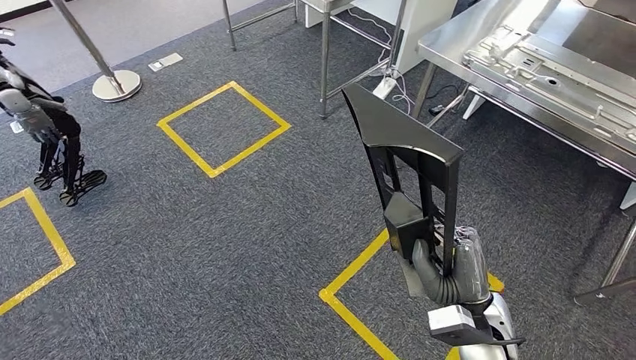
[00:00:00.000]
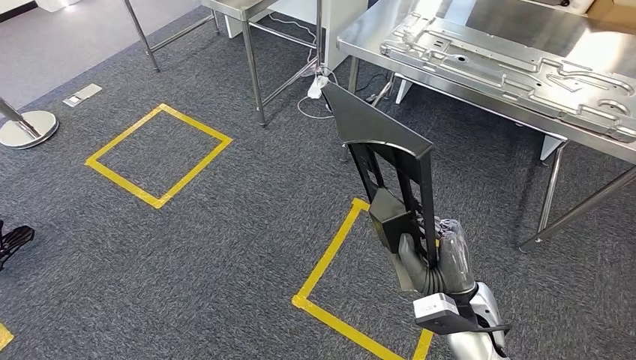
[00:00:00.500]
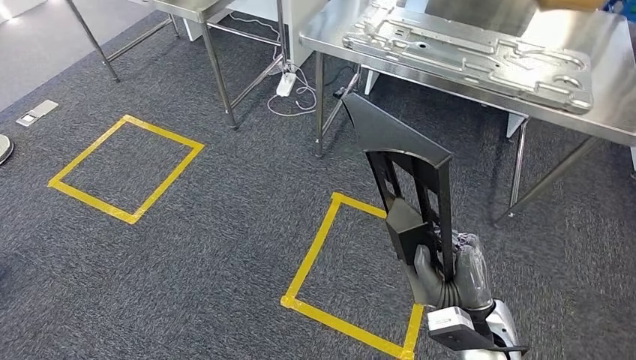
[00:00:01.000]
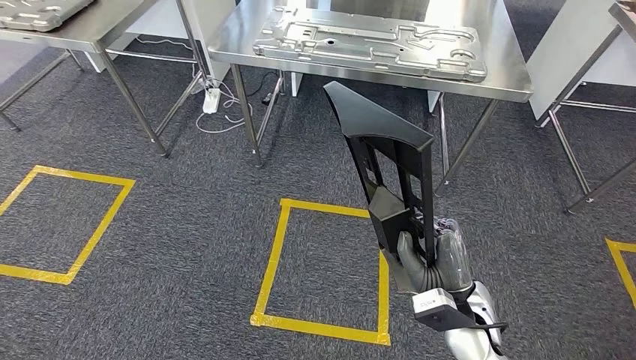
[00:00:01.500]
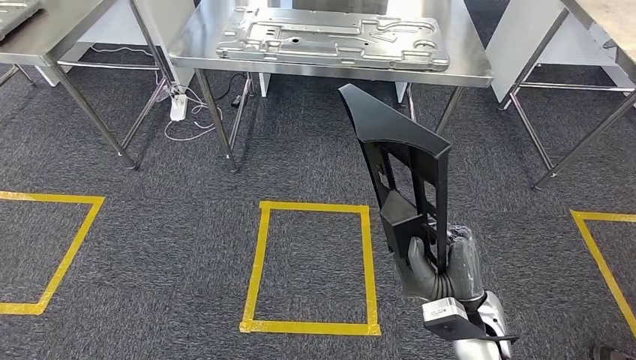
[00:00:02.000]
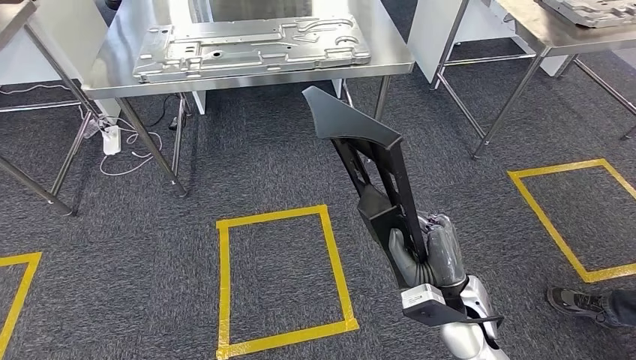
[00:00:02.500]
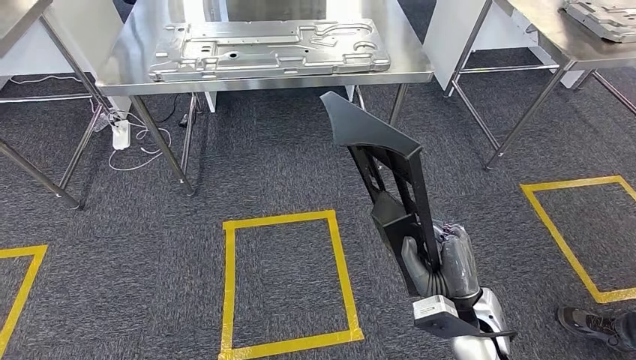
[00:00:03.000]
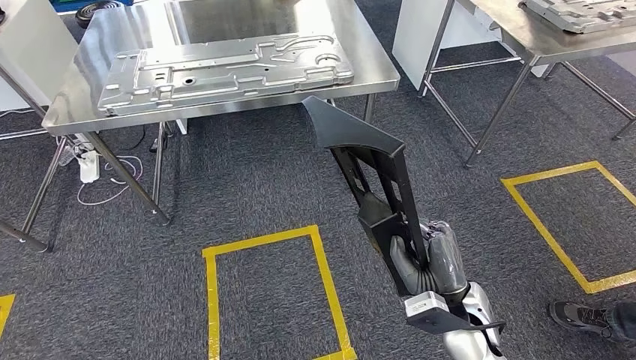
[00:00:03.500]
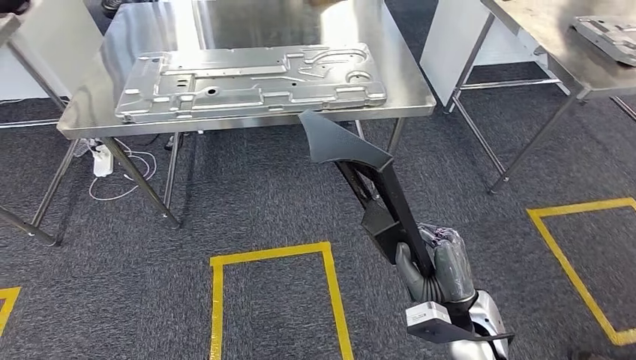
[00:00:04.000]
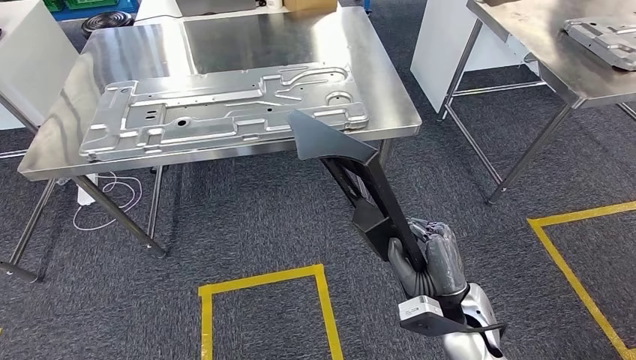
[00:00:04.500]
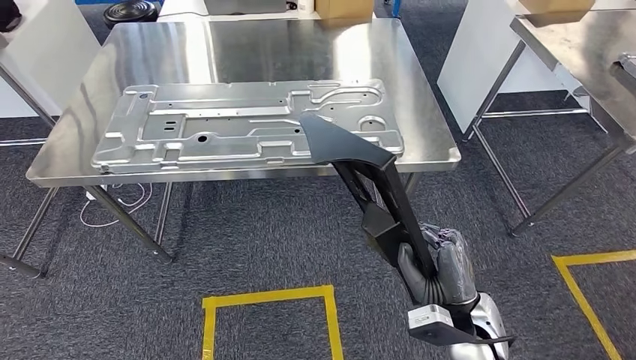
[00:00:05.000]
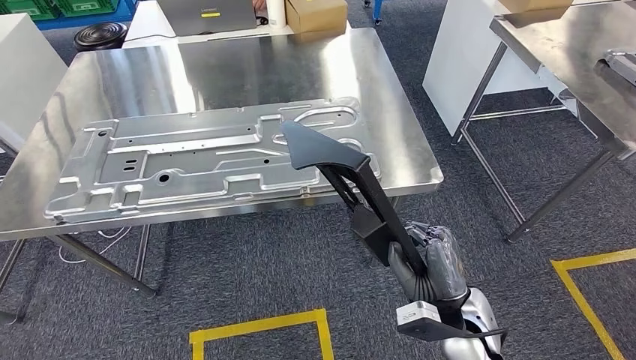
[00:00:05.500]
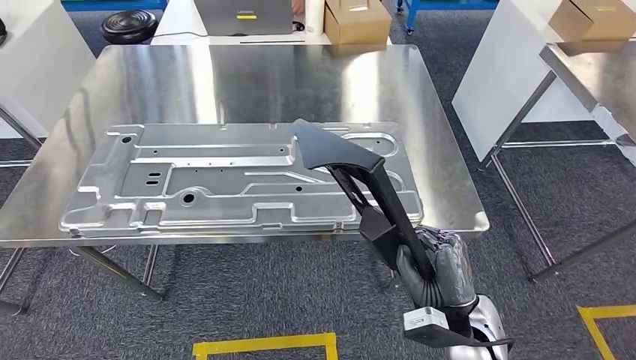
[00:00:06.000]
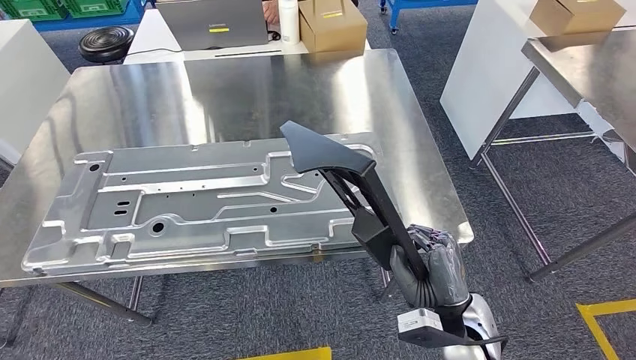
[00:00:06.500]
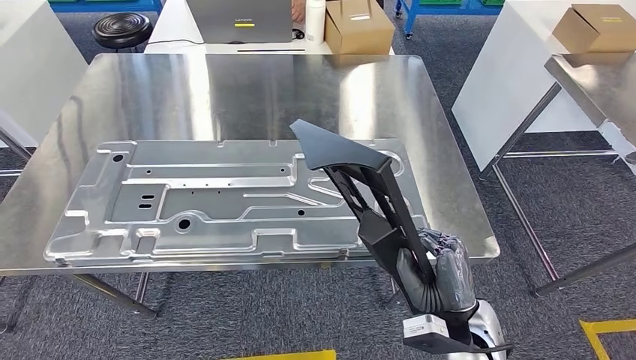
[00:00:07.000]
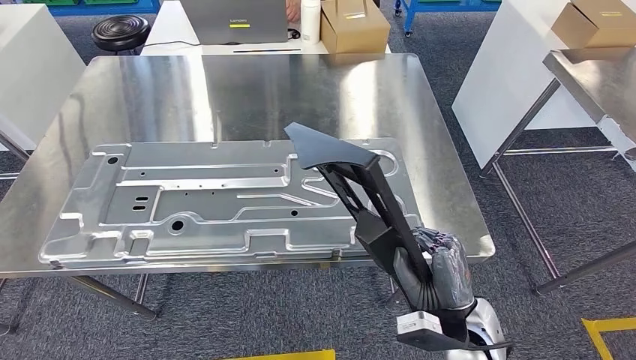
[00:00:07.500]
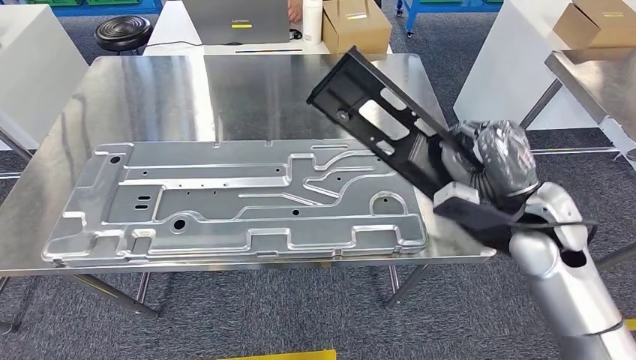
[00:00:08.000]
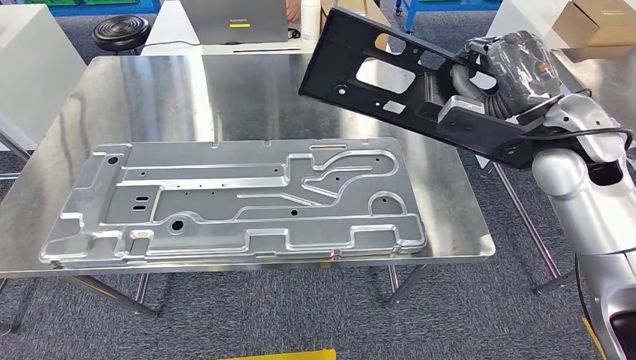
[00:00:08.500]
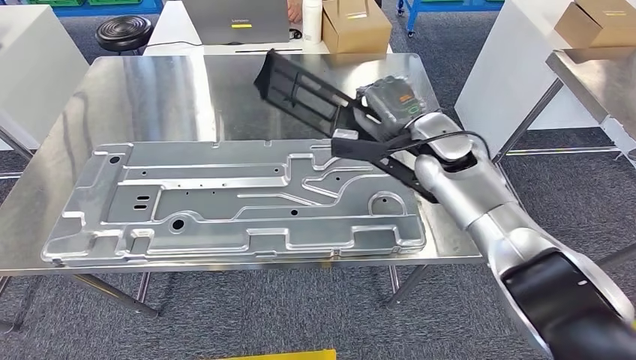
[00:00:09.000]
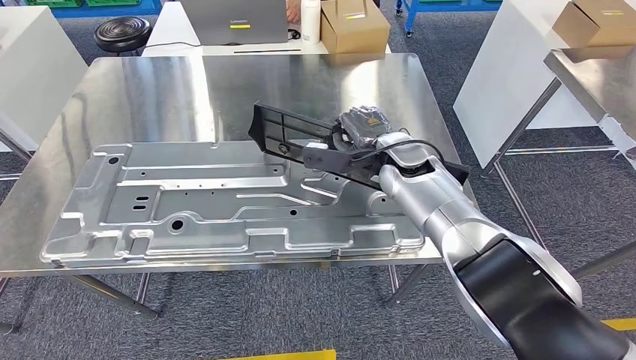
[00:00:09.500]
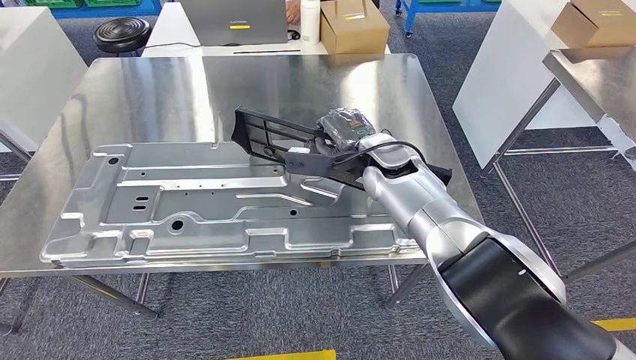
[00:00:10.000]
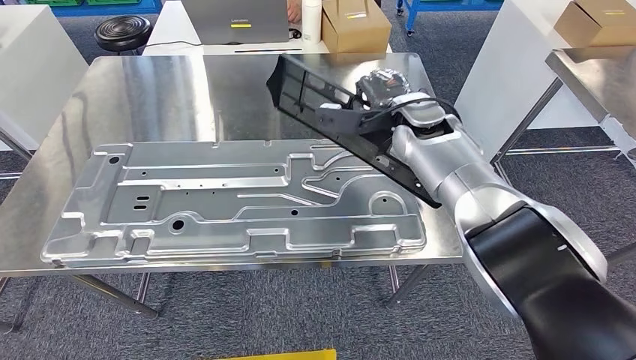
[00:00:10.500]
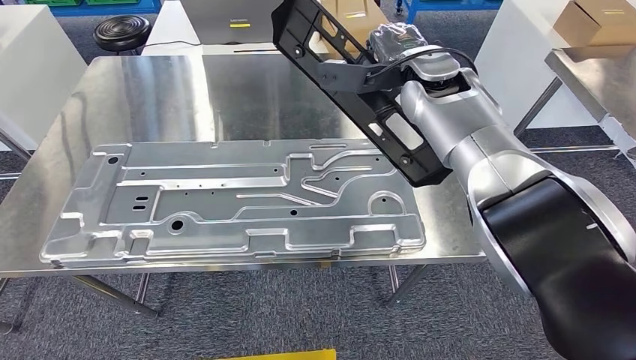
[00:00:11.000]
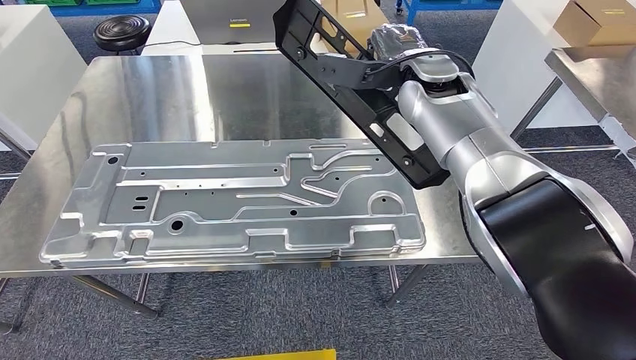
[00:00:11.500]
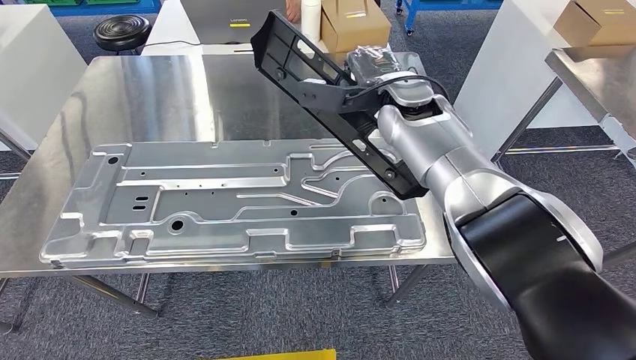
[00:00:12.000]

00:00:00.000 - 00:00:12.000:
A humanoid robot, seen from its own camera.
Step, 00:00:00.000 - 00:00:05.500: Move the large material to the workbench.

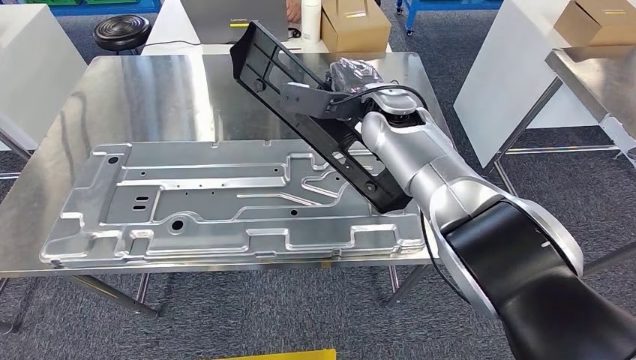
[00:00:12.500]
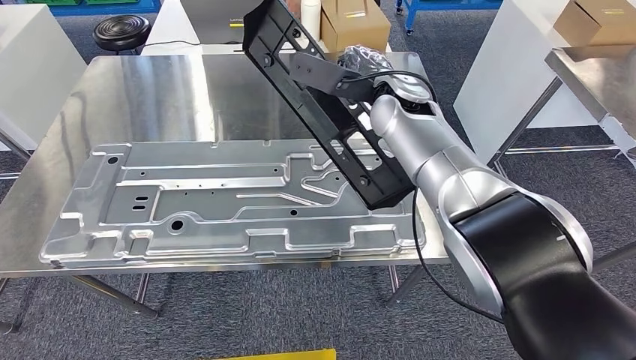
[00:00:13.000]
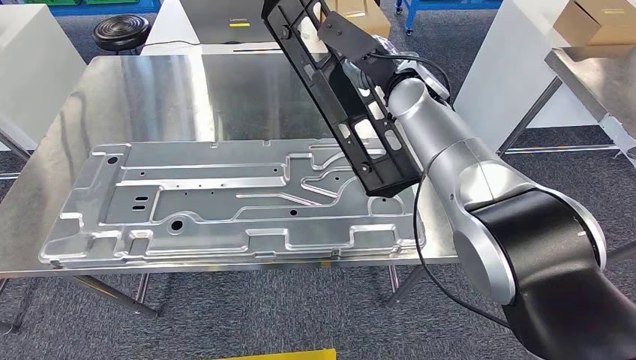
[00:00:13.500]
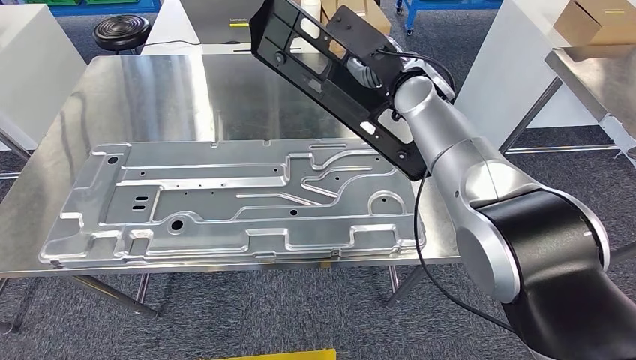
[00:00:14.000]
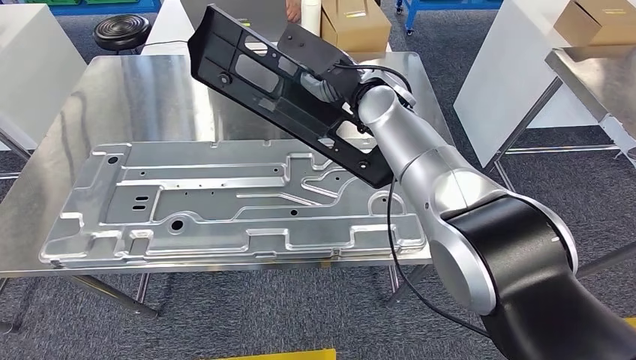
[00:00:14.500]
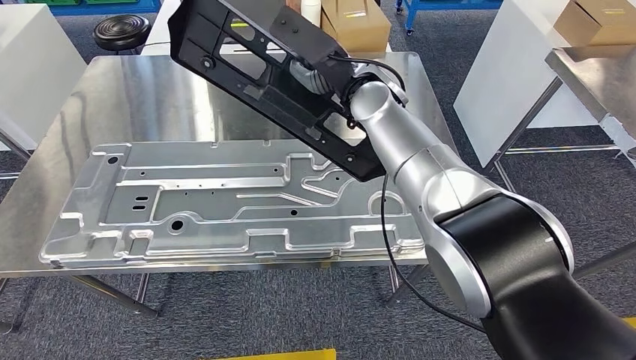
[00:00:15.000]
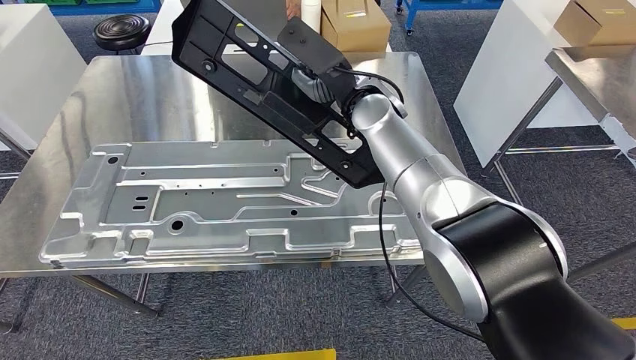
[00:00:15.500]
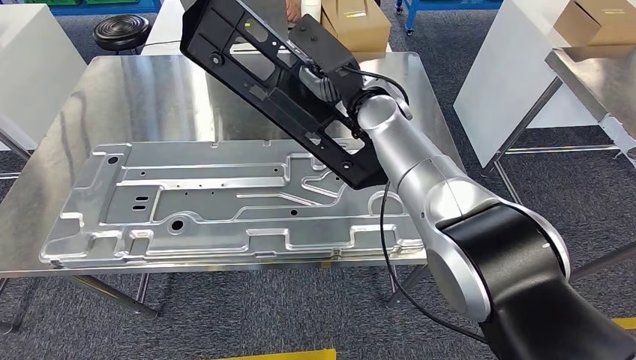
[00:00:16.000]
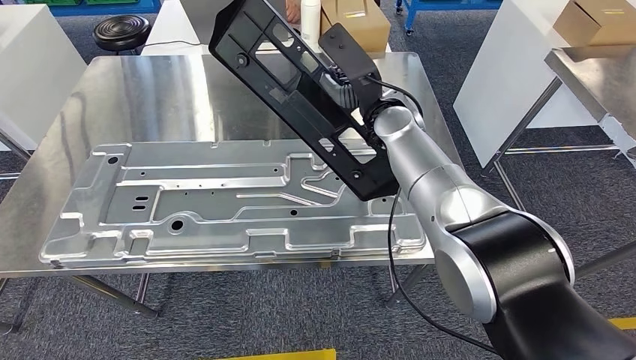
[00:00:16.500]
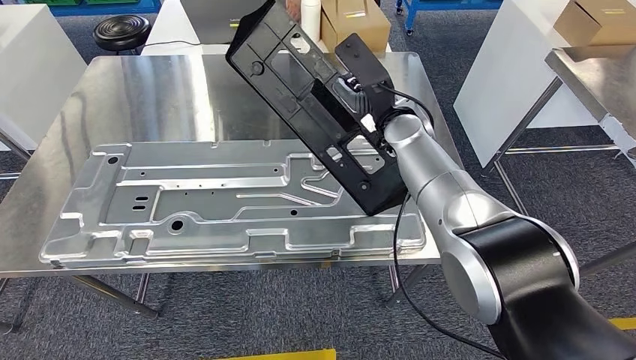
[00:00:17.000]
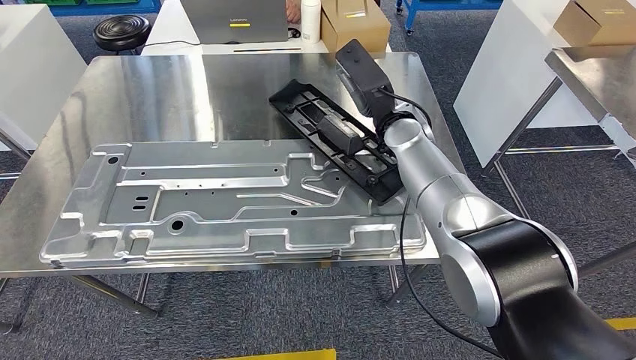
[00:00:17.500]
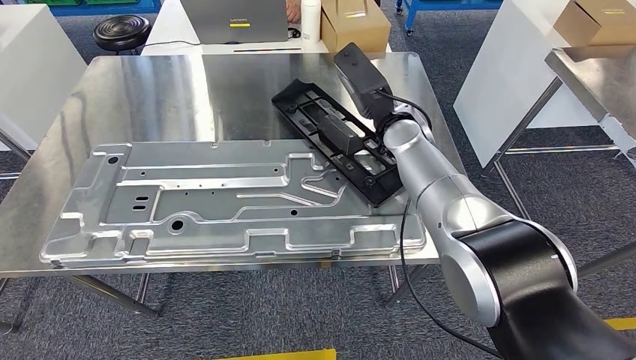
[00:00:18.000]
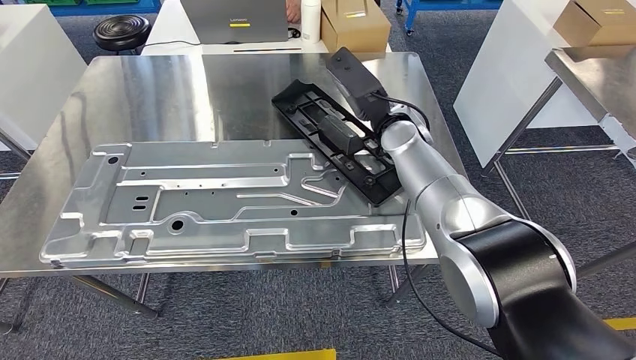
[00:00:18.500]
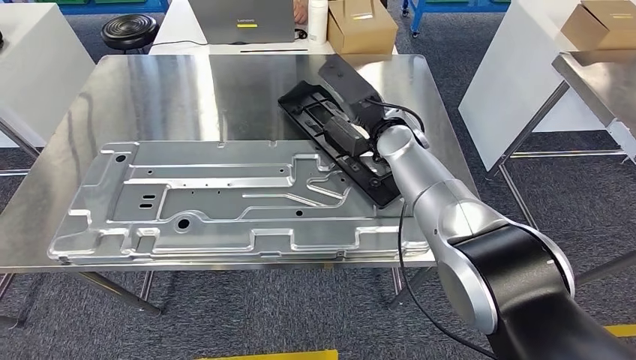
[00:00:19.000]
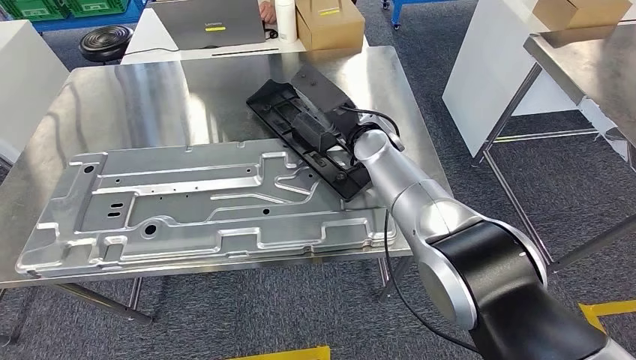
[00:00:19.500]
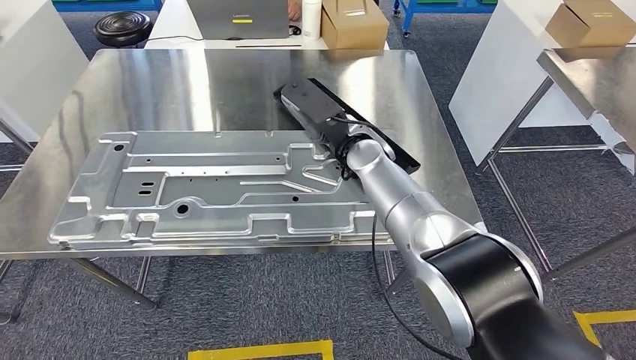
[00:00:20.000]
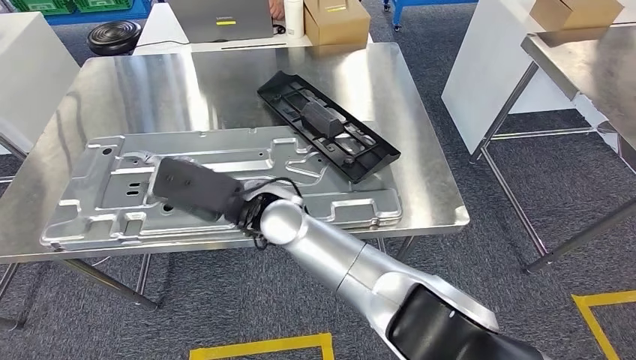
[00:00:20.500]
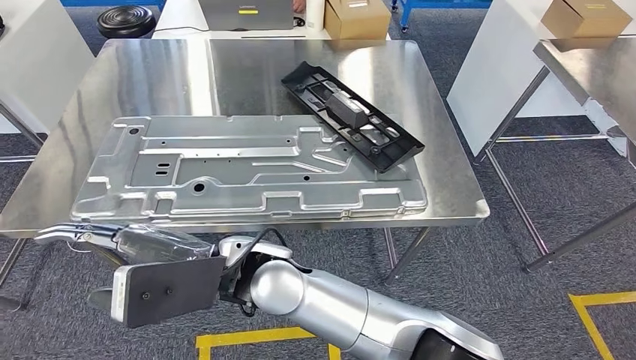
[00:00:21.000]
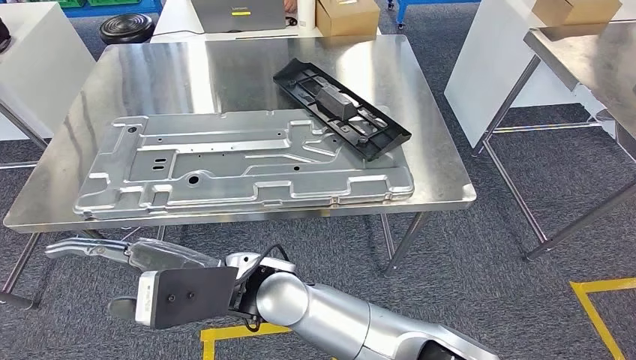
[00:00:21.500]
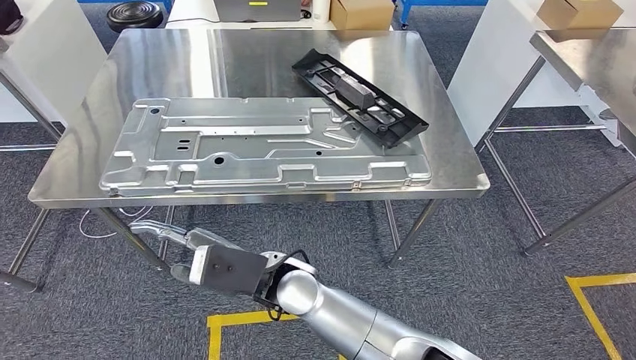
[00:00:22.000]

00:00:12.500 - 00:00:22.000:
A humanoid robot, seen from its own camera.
Step, 00:00:12.500 - 00:00:19.000: Insert the large material into the corresponding slot on the workbench.
00:00:14.500 - 00:00:16.500: The hands move only a little.
00:00:16.500 - 00:00:18.000: The hands stay close to where they were, moving slightly.
